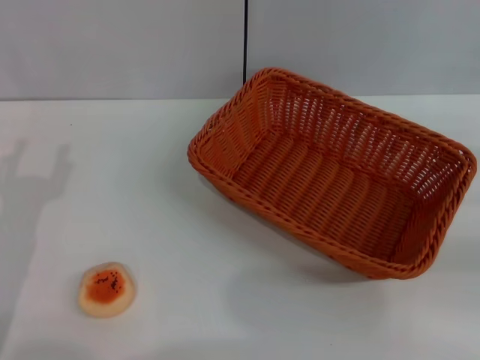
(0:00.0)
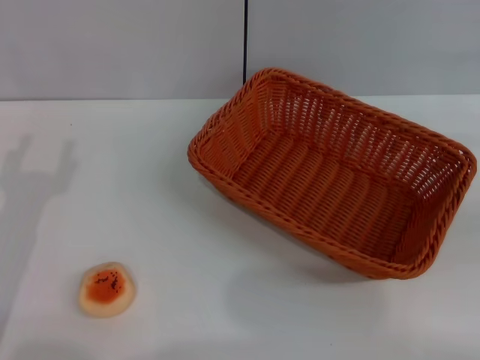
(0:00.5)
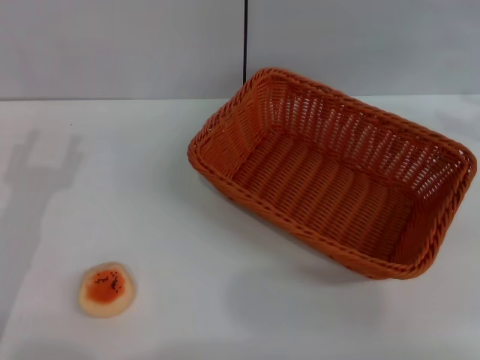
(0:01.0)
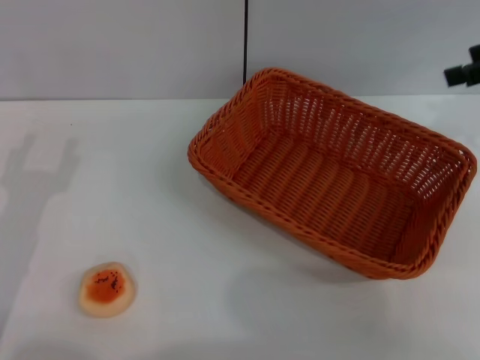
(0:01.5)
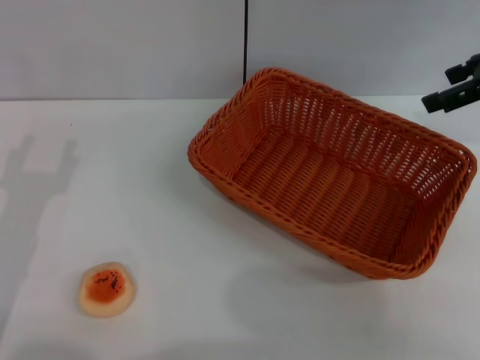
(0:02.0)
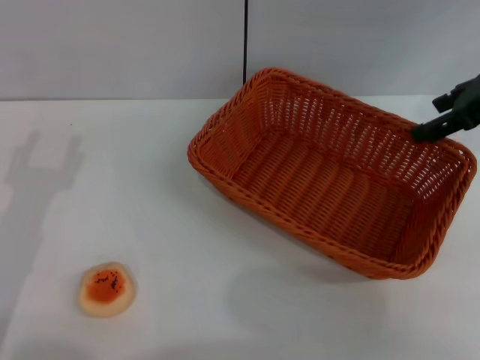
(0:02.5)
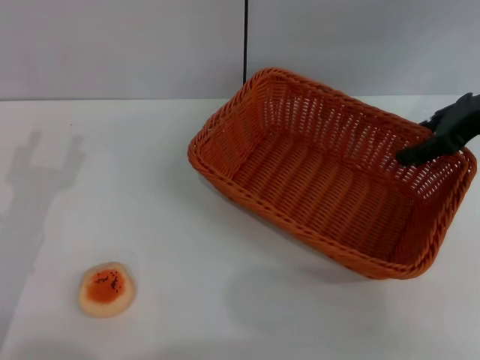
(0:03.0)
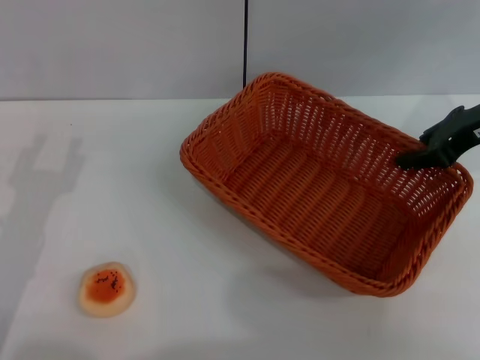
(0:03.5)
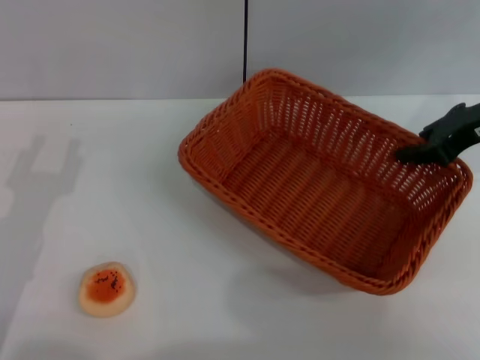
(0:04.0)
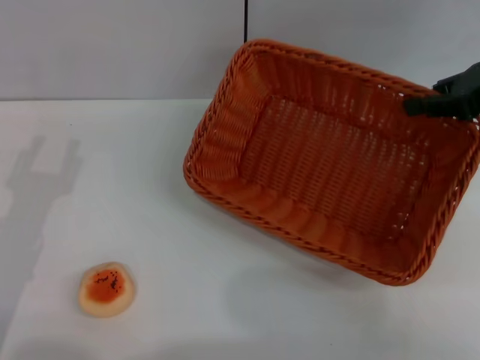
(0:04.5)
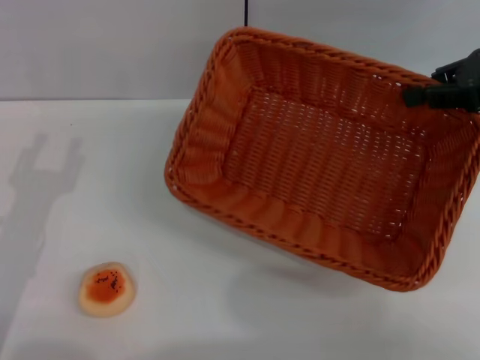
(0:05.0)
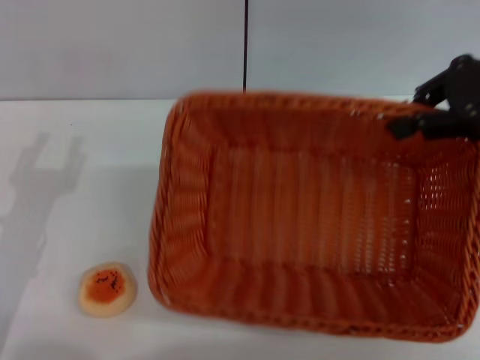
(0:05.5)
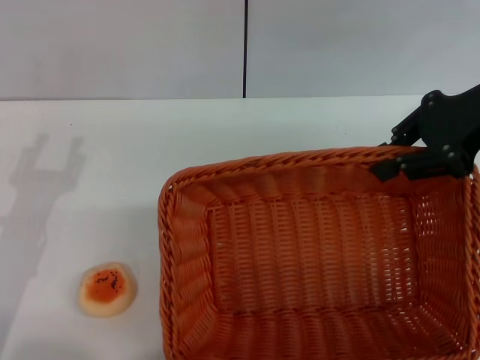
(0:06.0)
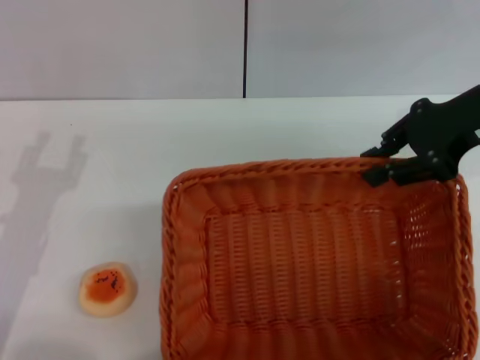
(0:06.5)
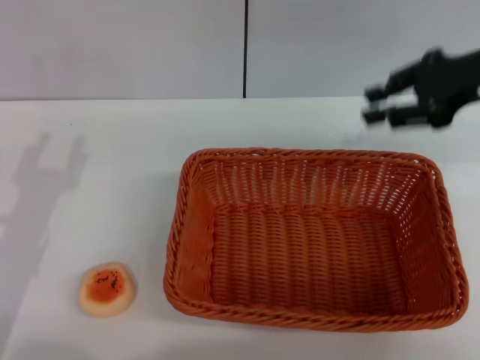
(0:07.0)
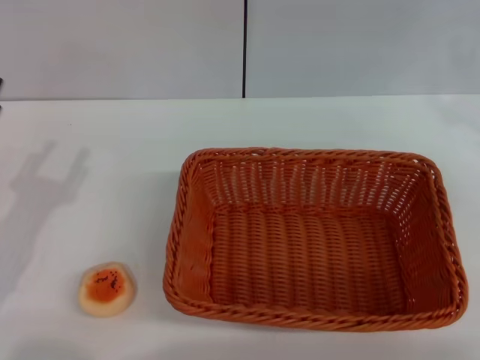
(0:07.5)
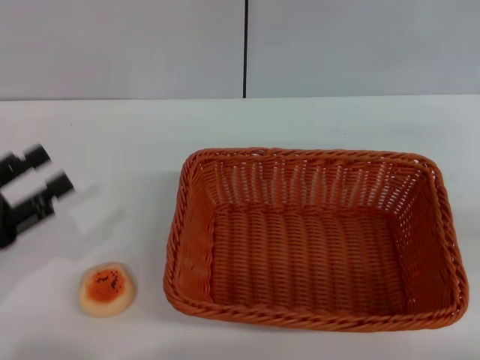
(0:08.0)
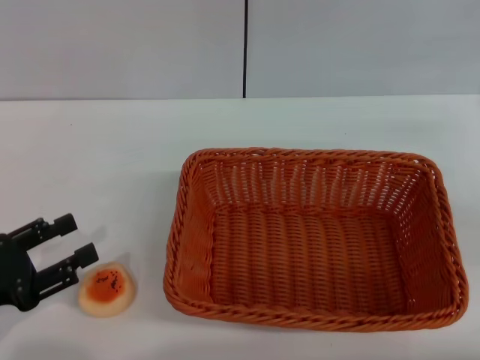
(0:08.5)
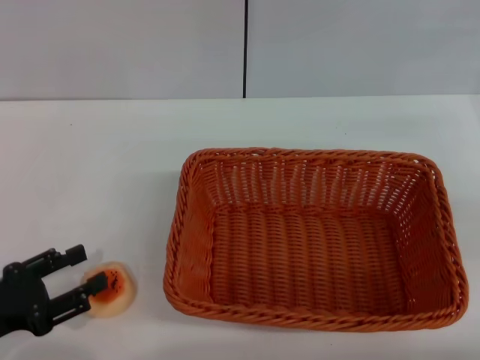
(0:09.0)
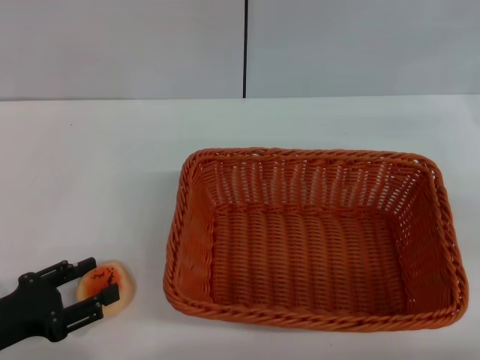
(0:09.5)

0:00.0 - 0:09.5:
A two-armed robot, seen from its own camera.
Step, 0:00.0 - 0:06.5: Move the basket to the center of view with the right gripper.
0:00.0 - 0:02.0: The right gripper goes about 20 cm forward, upward and to the left.
0:02.0 - 0:04.0: The right gripper moves downward, approximately 5 cm, and closes its fingers.
0:04.0 - 0:05.5: The right gripper is displaced upward by approximately 5 cm.
0:05.5 - 0:07.5: The right gripper is displaced to the right and downward by roughly 10 cm.
0:07.5 - 0:09.5: The left gripper ends up some 5 cm from where it was.

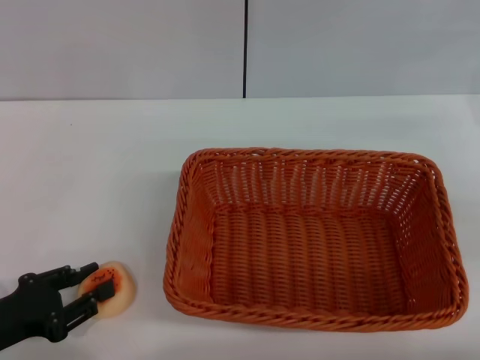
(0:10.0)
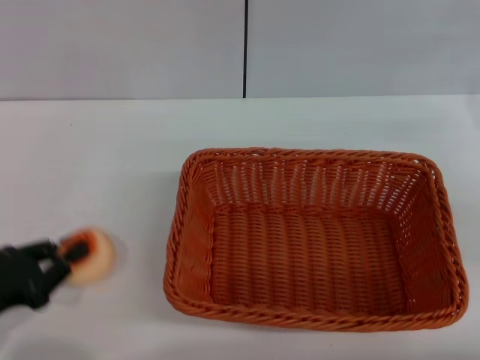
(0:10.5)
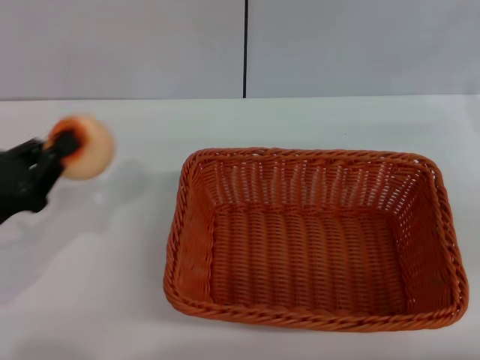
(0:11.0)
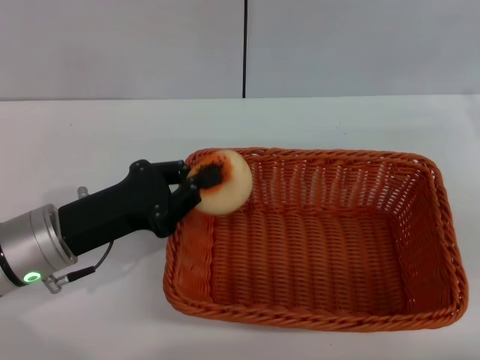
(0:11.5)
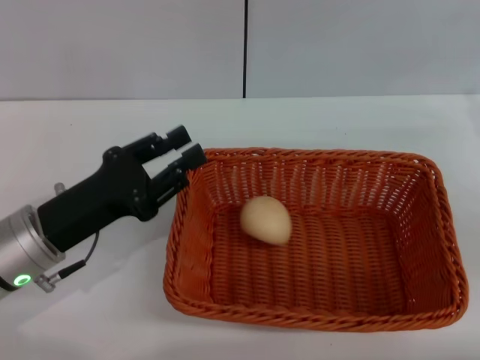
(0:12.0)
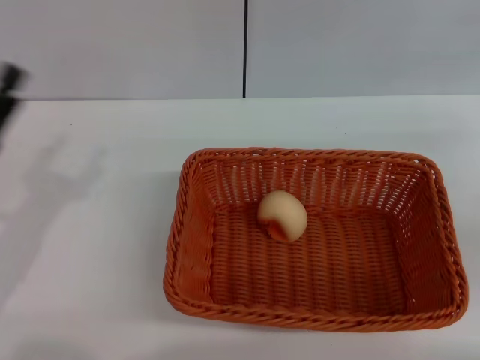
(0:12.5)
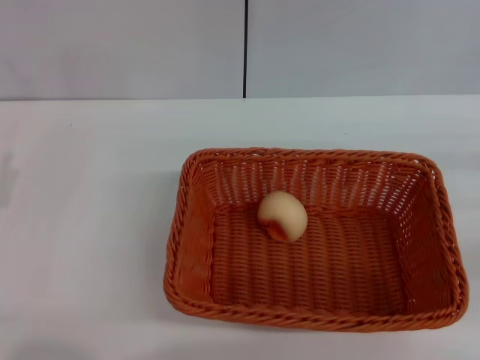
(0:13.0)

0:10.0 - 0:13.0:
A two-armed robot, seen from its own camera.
Step, 0:11.0 - 0:12.0: Place the egg yolk pastry into the basket with the left gripper.
0:10.0 - 0:11.5: The left gripper heads to the right and forward, covering about 15 cm, and closes its fingers.
0:11.5 - 0:13.0: The right gripper changes place by about 5 cm, while the left gripper is displaced to the left and backward by approximately 15 cm, and opens.

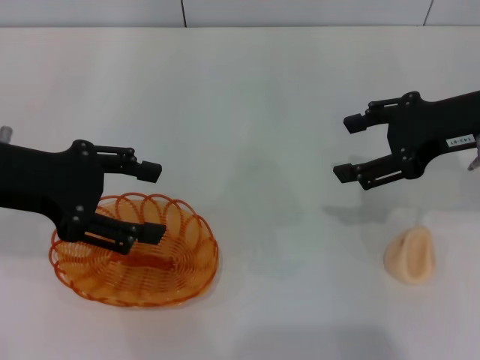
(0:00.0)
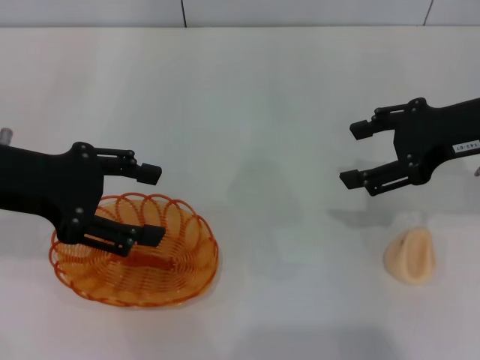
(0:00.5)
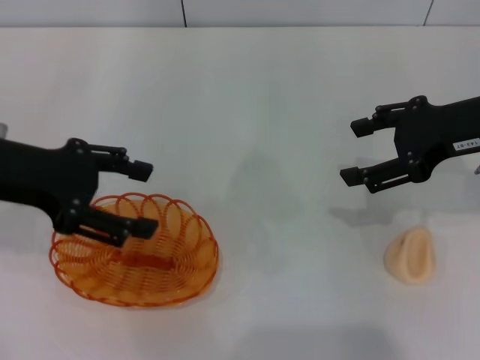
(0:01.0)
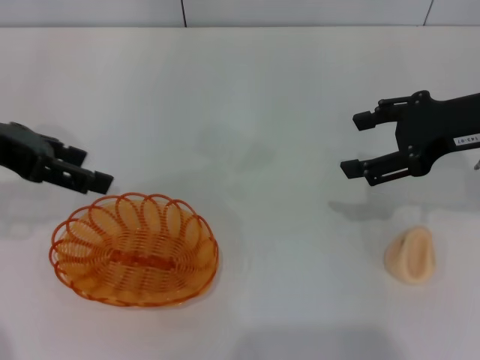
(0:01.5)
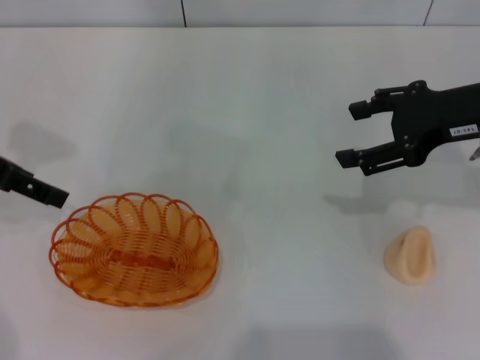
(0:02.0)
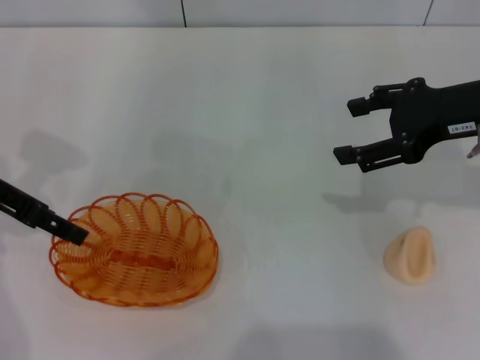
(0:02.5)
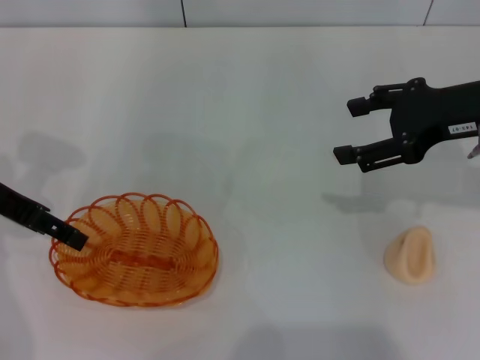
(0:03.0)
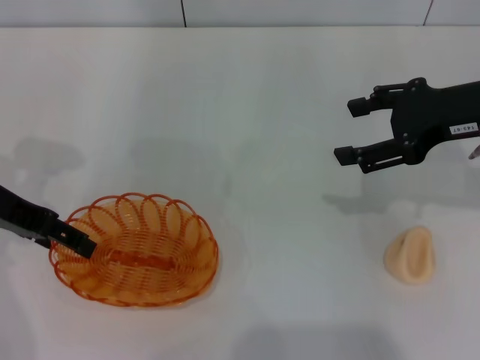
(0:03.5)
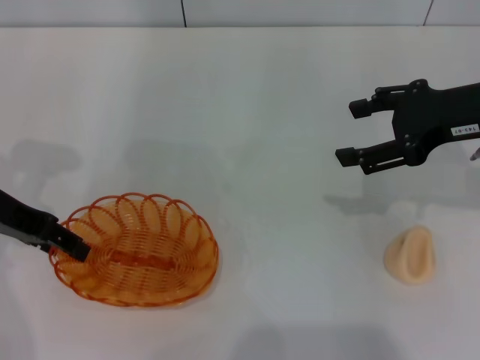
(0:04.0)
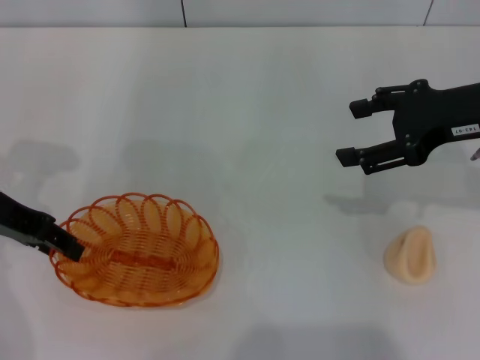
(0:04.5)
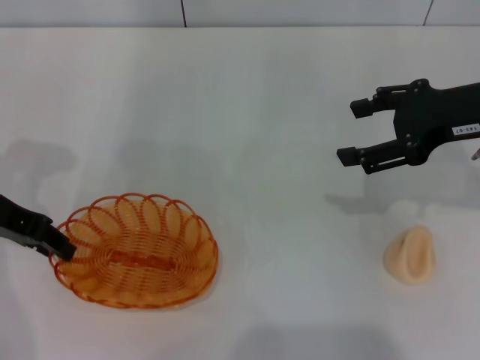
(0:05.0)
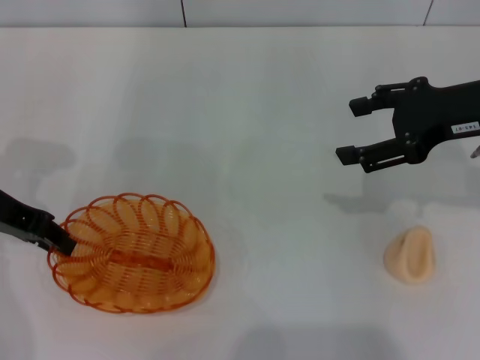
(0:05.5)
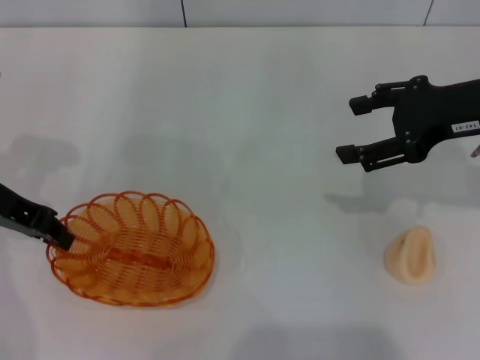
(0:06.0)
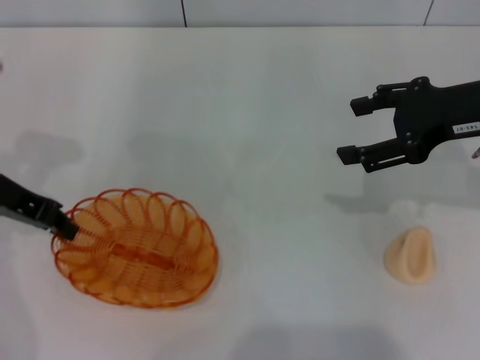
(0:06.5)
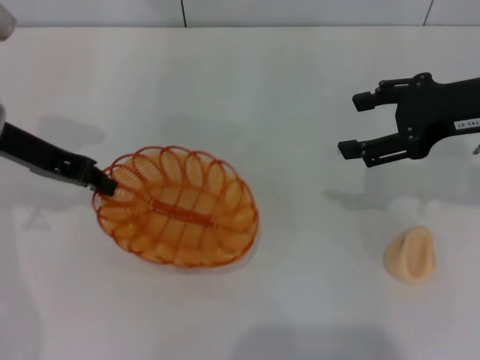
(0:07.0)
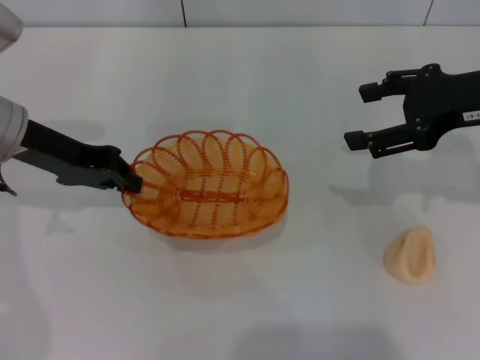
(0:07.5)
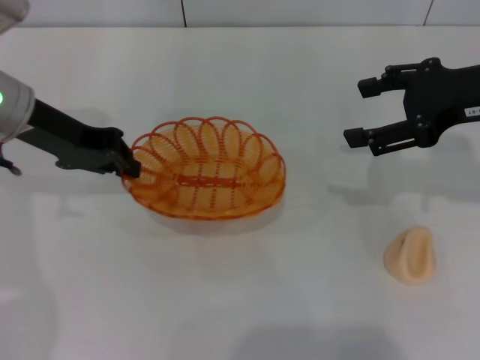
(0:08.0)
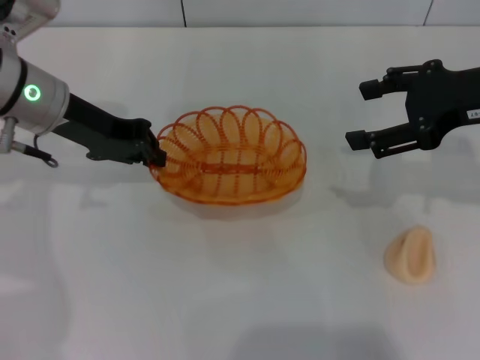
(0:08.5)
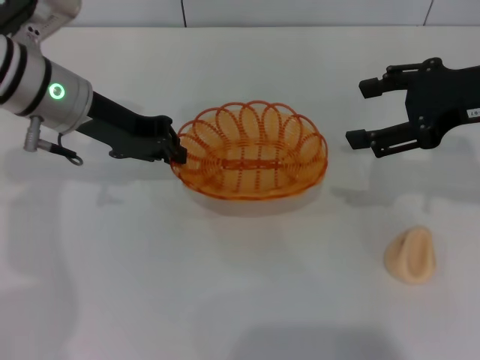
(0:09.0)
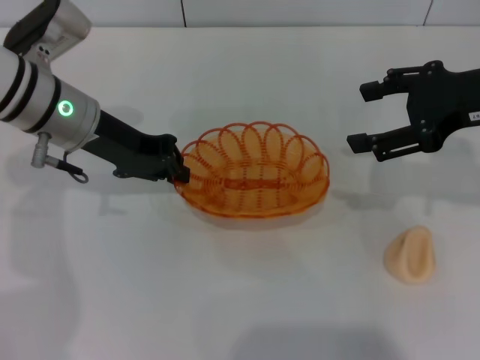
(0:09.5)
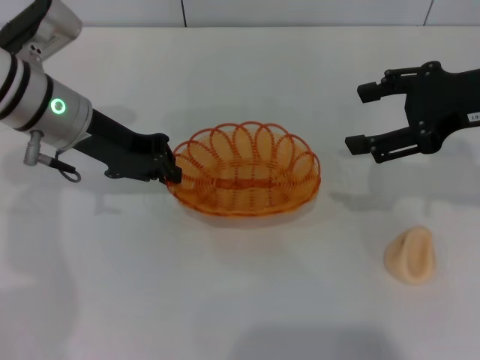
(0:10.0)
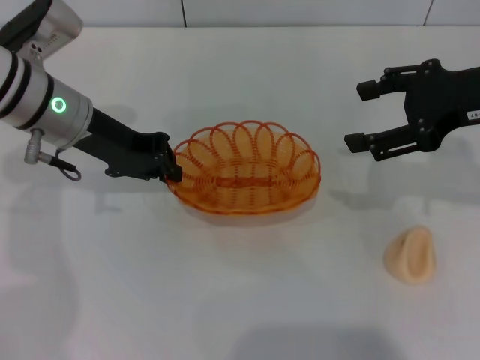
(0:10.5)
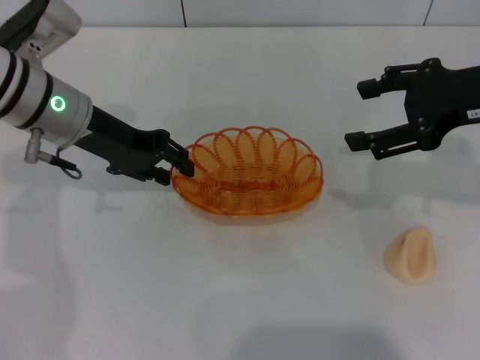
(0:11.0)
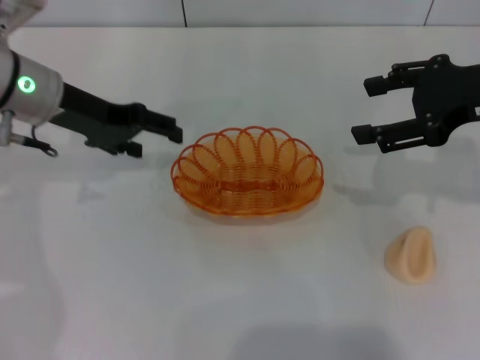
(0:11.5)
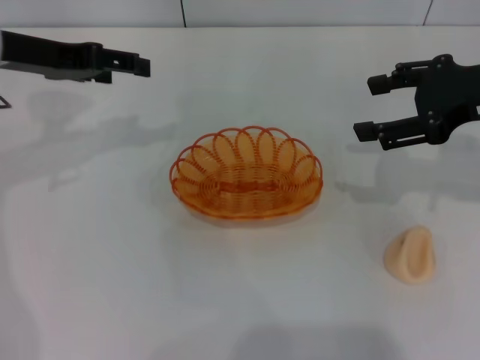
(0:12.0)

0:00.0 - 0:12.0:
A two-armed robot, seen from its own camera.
Step, 0:00.0 - 0:07.5: Pick up the basket with the left gripper.
Step, 0:08.0 - 0:11.5: Place the basket in the center of view with the left gripper.
0:00.0 - 0:02.0: The left gripper moves roughly 5 cm.
0:02.0 - 0:04.0: The left gripper shifts some 5 cm downward.
0:04.0 - 0:06.0: The left gripper closes up.
0:06.0 - 0:08.0: The left gripper moves about 5 cm.
0:08.0 - 0:10.0: The left gripper moves approximately 5 cm.
0:10.0 - 0:12.0: The left gripper is displaced to the left and upward by approximately 10 cm, and opens up.

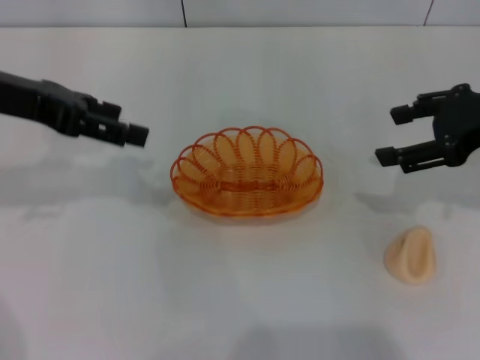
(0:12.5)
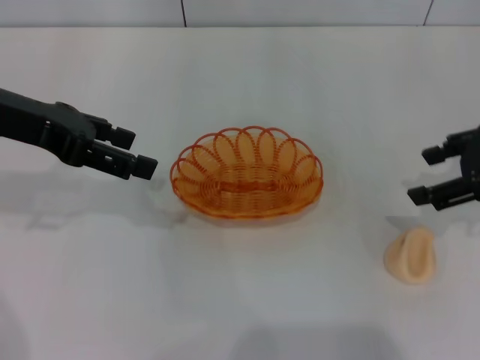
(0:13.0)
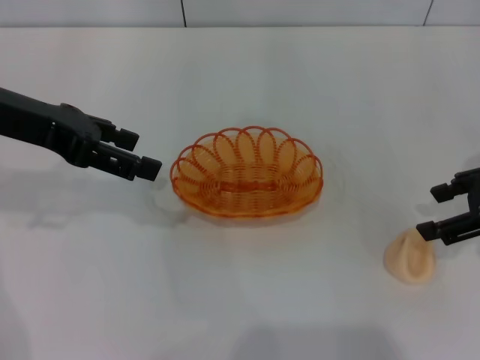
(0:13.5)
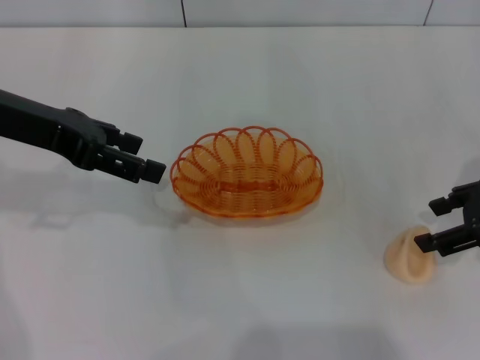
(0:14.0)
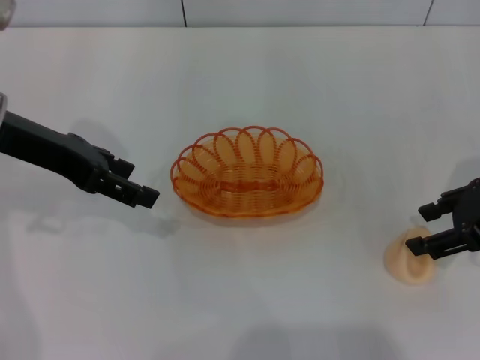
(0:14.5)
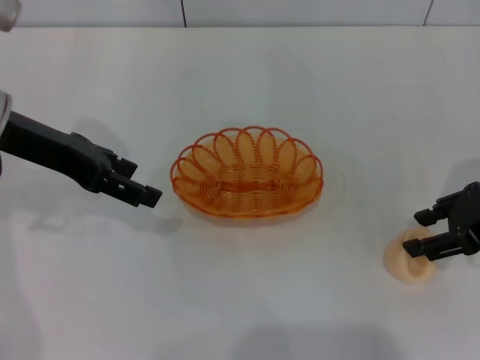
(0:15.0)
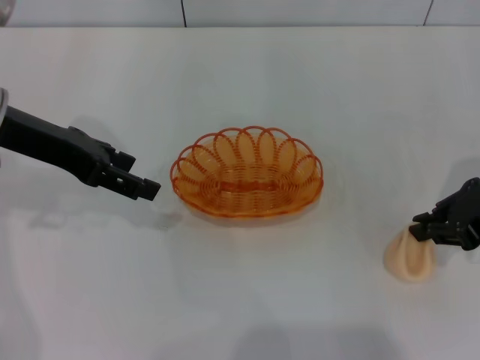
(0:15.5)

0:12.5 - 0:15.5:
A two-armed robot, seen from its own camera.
0:12.5 - 0:14.0: The right gripper moves approximately 5 cm.
0:14.0 - 0:15.5: The right gripper closes its fingers.
